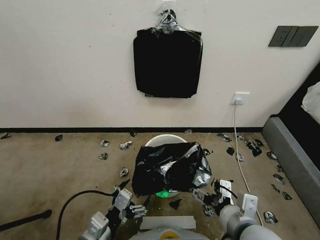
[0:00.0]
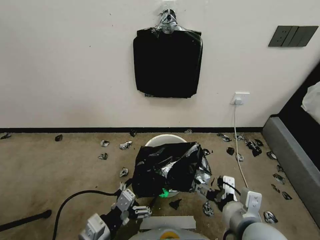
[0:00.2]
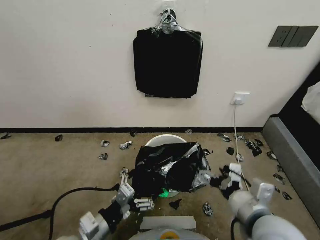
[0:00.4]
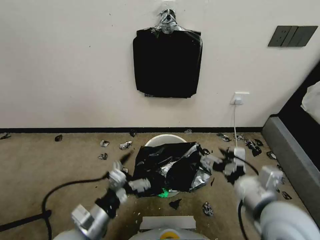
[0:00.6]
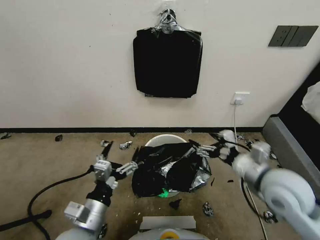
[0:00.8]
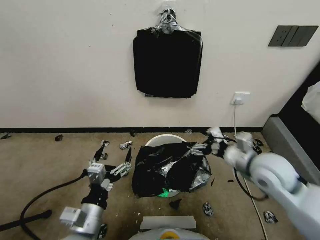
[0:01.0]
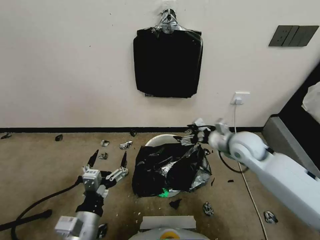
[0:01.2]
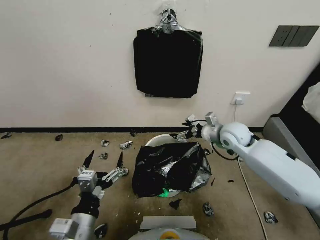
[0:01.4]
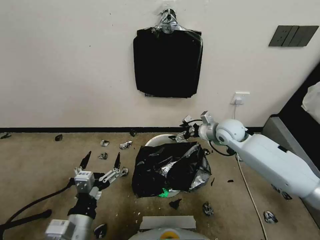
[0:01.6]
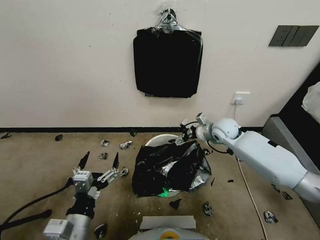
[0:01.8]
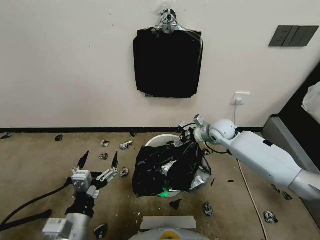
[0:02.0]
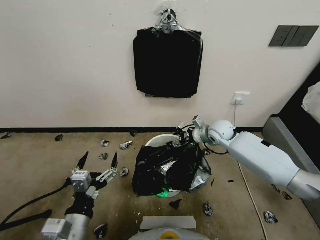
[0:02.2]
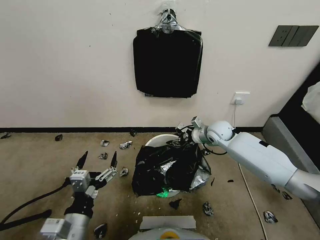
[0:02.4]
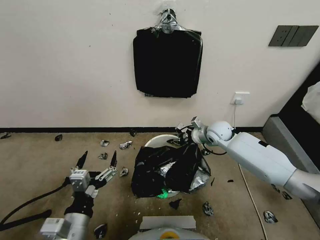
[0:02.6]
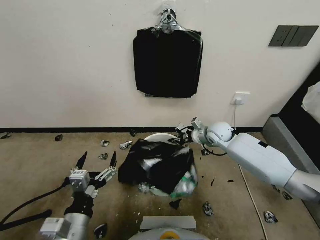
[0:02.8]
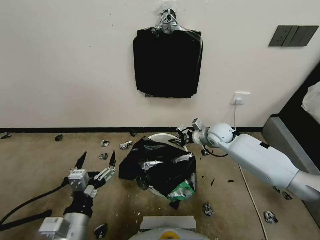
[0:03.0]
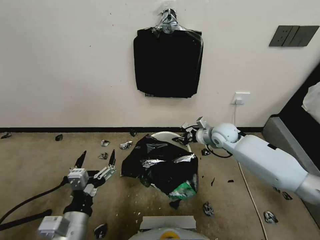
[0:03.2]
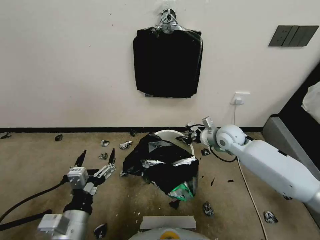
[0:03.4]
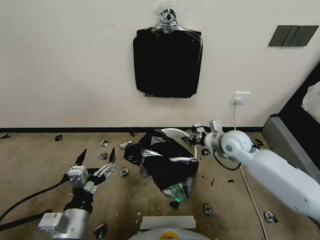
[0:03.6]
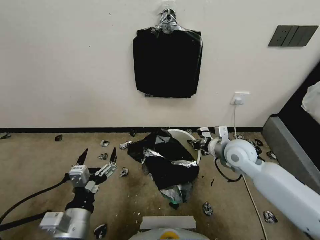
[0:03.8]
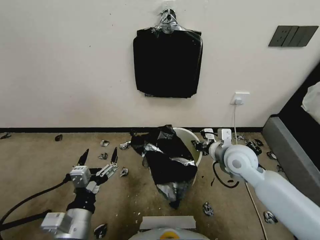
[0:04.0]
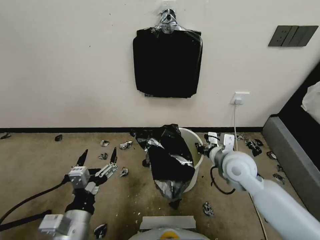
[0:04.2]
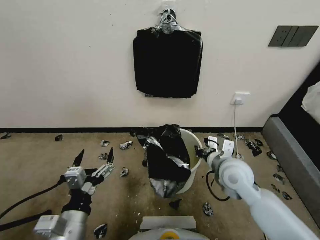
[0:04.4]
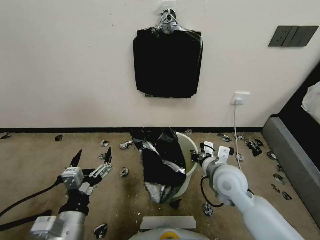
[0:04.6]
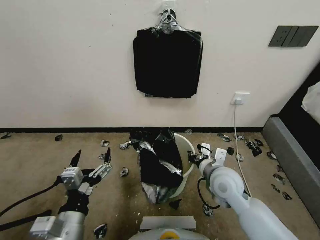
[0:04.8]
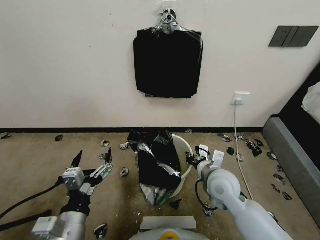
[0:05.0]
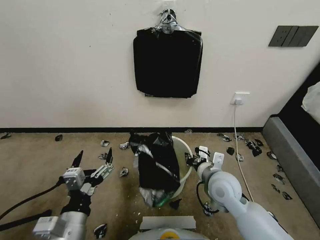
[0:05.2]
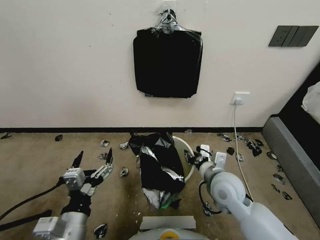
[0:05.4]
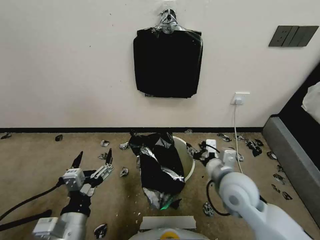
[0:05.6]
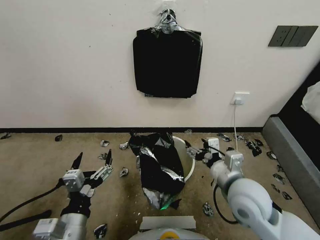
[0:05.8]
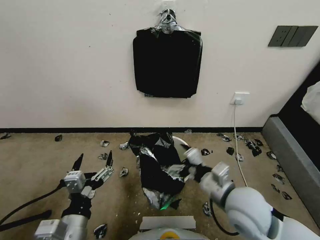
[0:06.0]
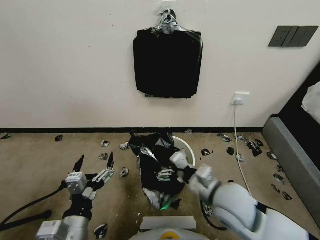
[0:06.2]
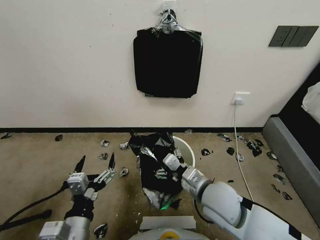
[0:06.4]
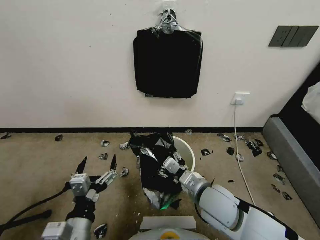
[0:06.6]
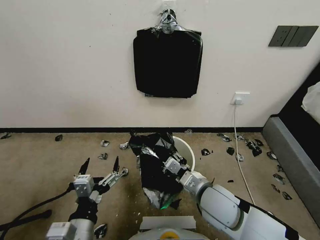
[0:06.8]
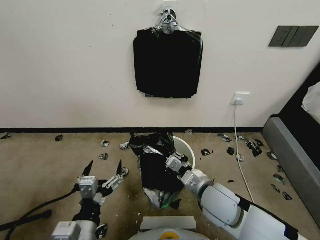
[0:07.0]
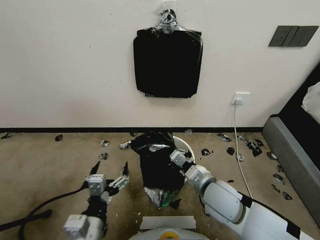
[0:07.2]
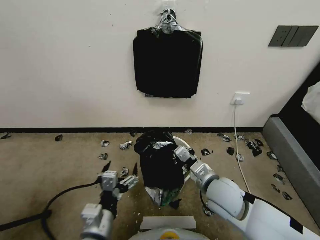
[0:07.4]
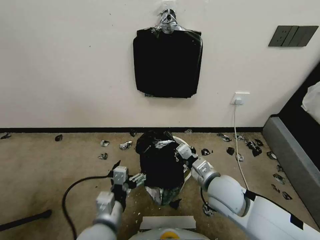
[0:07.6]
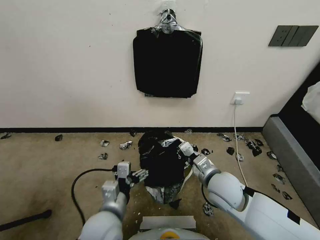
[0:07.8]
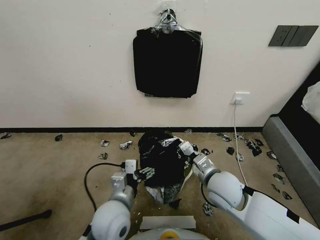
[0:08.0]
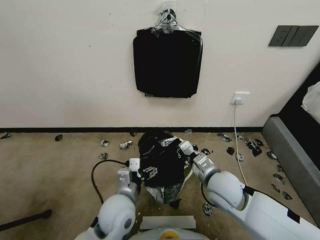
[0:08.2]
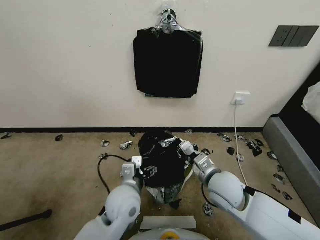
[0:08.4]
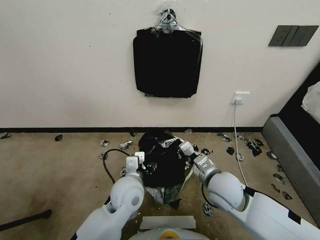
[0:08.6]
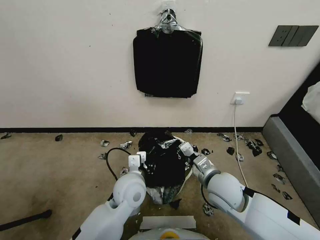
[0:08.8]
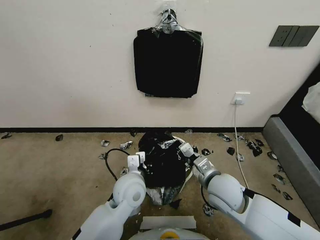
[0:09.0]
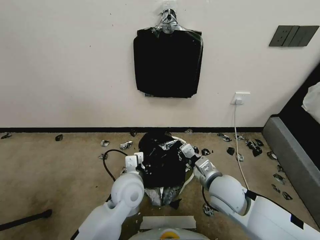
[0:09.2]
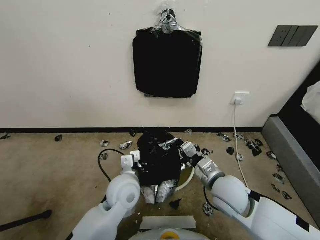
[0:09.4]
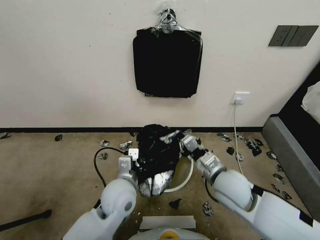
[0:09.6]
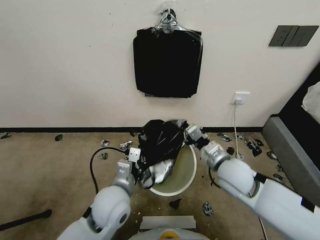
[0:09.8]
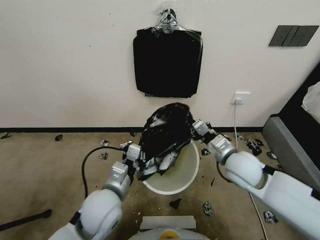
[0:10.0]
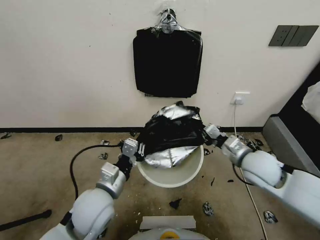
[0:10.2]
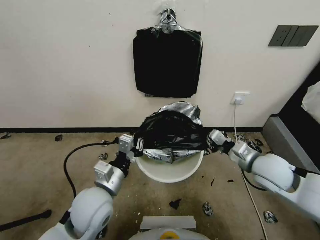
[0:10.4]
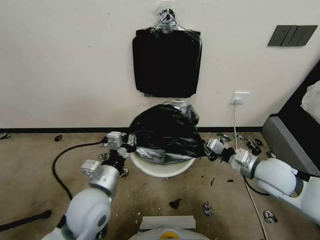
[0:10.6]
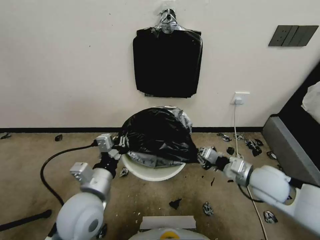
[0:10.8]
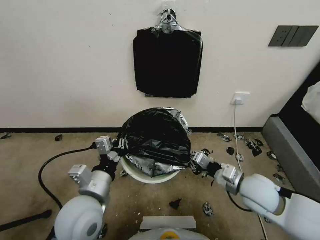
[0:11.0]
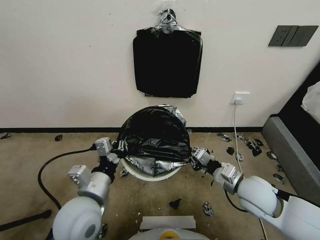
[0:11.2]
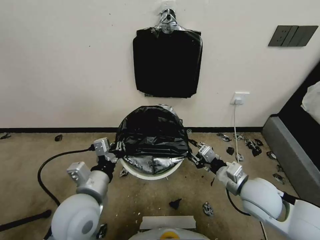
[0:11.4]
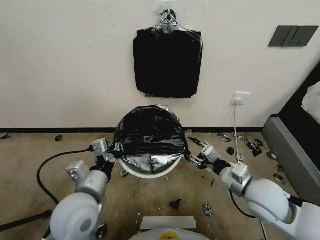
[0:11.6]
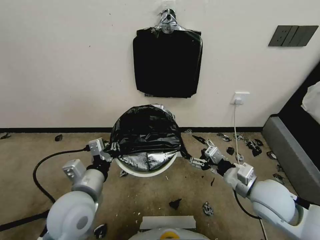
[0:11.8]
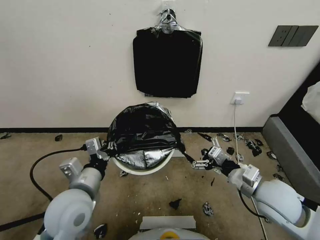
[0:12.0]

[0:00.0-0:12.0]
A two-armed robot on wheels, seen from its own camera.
Task of the whole recording: Place a trash bag onto the trash bin.
0:00.0 to 0:01.6: The right gripper travels forward by some 35 cm.
0:01.6 to 0:03.0: The right gripper is displaced downward by about 5 cm, and closes up.
0:03.0 to 0:04.4: The right gripper heads backward, covering some 20 cm.
0:04.4 to 0:06.0: The right gripper is displaced backward by approximately 10 cm, and opens.
0:06.0 to 0:07.6: The right gripper travels downward by approximately 5 cm, and closes its fingers. The left gripper goes about 5 cm to the right.
0:07.6 to 0:09.0: The left gripper shifts roughly 15 cm forward and to the right, and closes its fingers.
0:09.0 to 0:10.4: The left gripper is displaced to the left and backward by roughly 10 cm, while the right gripper goes approximately 15 cm to the right and upward.
0:10.4 to 0:12.0: The right gripper goes about 5 cm backward, and opens its fingers. The left gripper ends up some 5 cm from where it was.

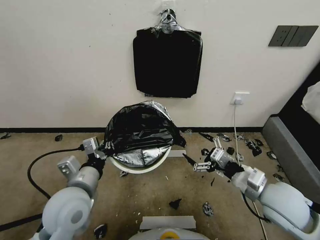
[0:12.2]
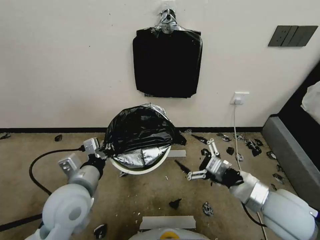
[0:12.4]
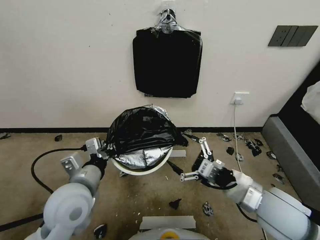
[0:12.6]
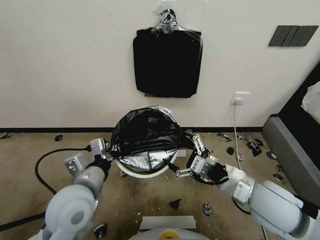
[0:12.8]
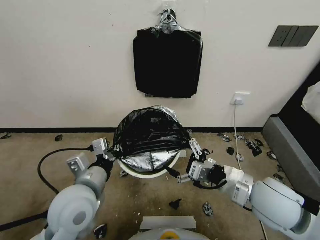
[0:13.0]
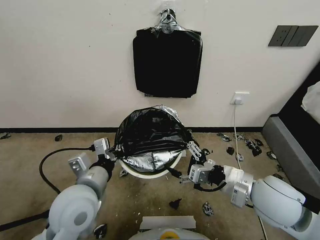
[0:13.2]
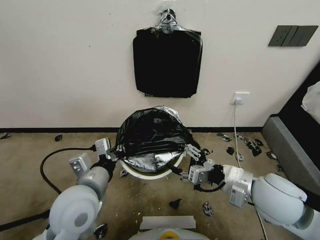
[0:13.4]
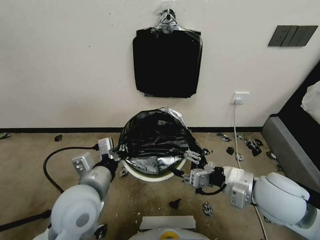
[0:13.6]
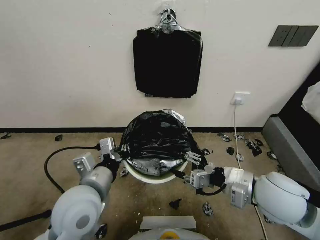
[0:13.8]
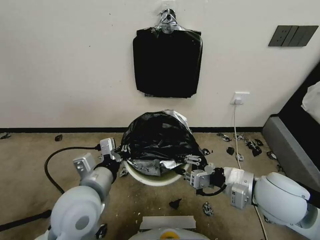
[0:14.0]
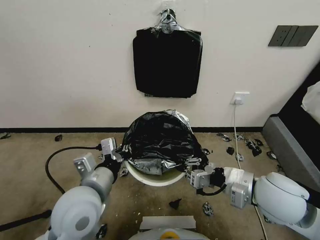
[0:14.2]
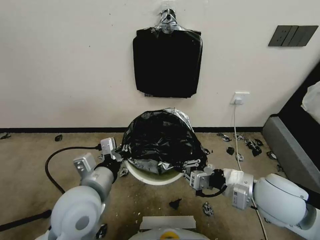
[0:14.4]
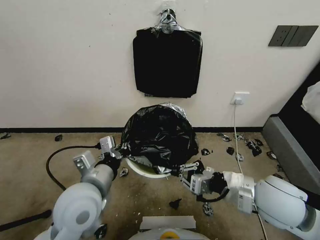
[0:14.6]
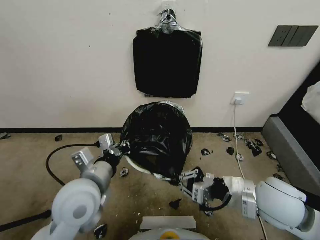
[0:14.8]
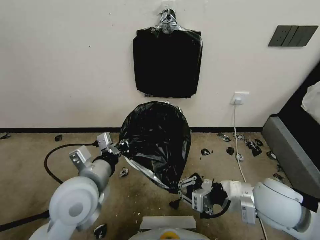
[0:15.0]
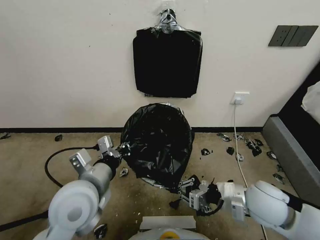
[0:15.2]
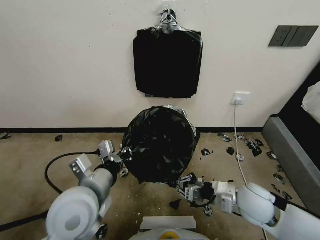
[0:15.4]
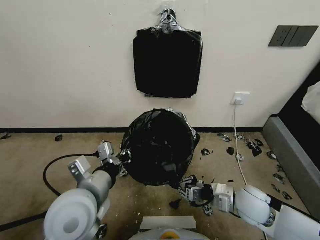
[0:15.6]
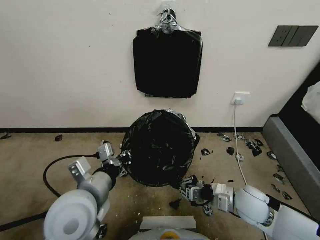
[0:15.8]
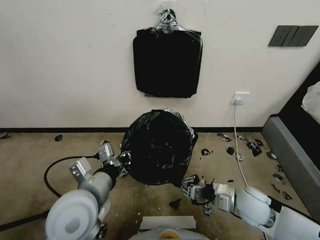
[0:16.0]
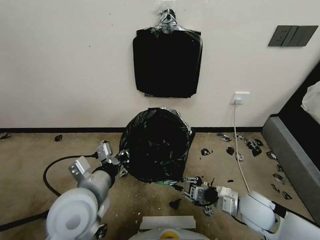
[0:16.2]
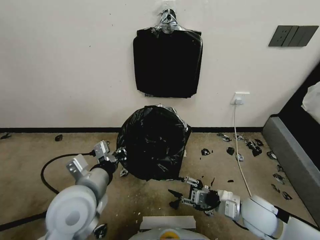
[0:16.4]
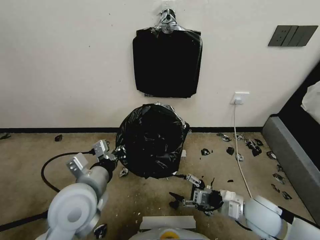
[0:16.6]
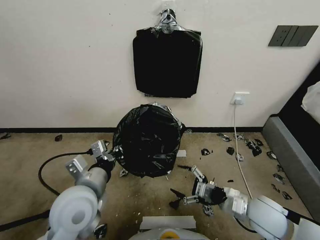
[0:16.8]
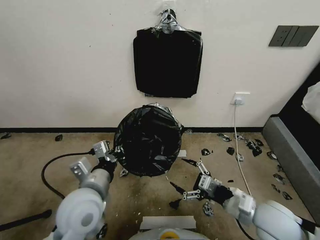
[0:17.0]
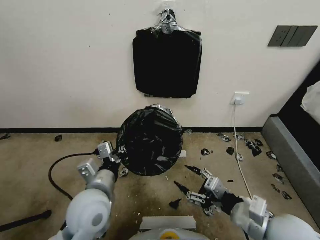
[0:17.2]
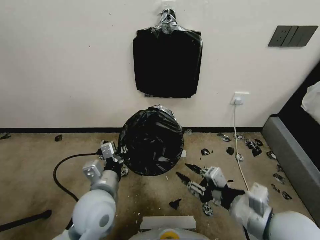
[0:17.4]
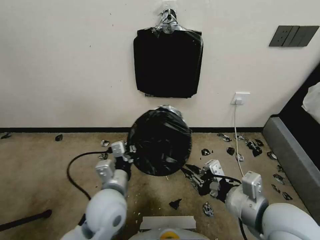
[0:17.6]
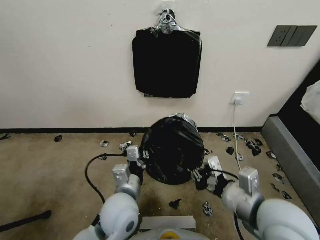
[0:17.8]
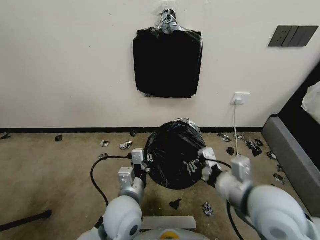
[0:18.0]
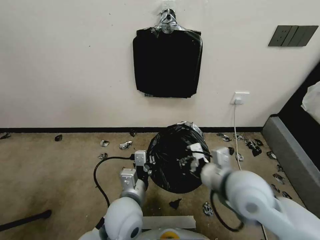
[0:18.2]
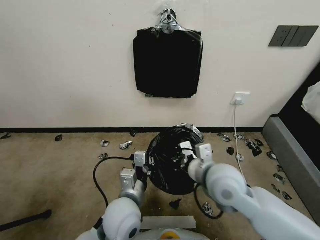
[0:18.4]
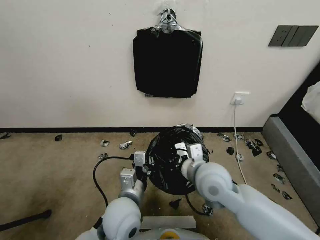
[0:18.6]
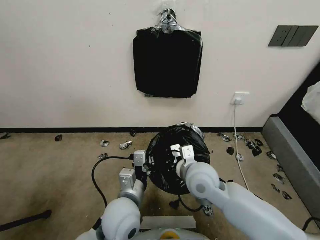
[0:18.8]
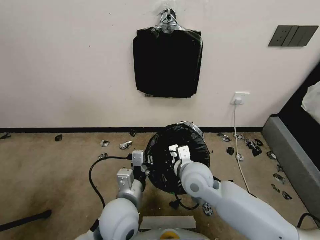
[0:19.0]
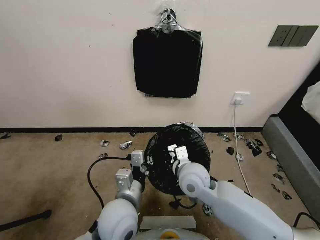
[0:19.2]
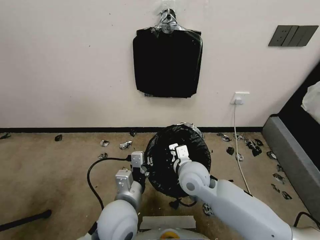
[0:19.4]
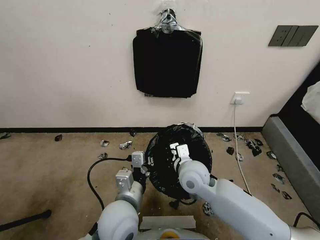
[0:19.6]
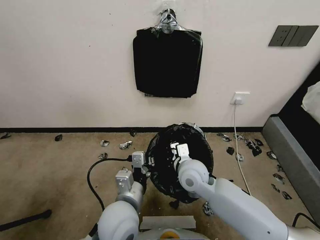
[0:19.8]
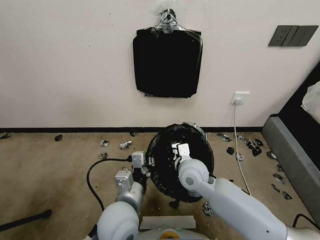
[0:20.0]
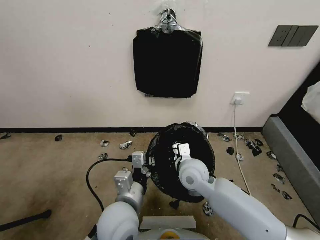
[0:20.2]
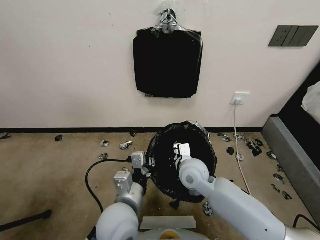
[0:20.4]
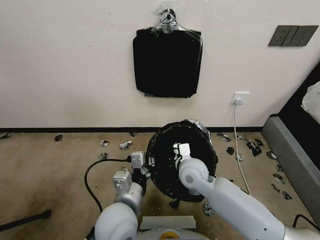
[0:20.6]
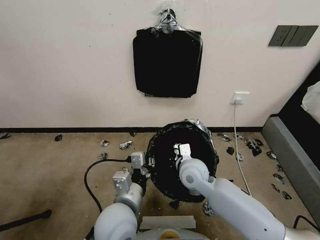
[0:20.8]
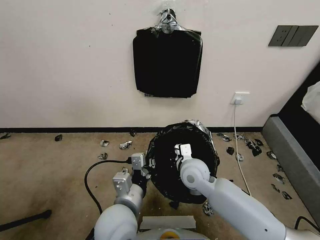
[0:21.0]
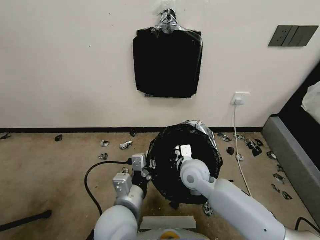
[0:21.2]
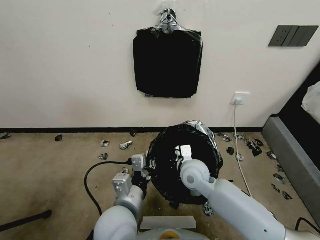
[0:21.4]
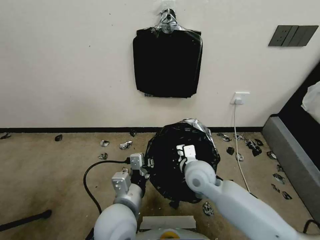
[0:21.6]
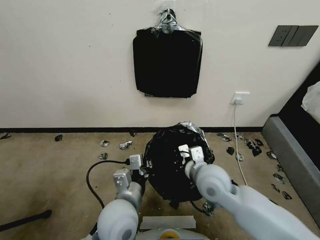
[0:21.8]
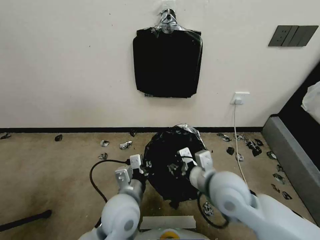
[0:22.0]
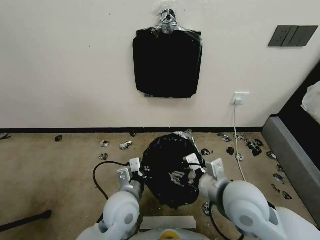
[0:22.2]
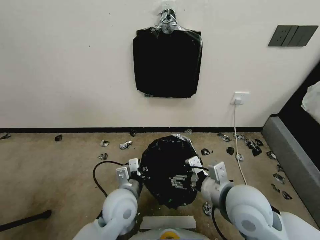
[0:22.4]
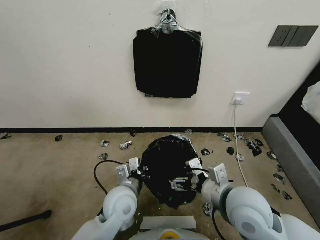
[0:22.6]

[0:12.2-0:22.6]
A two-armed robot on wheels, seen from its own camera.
Task of the whole recording: Place a trash bag onto the trash bin.
0:12.2 to 0:13.6: The right gripper changes place by some 5 cm, and closes up.
0:13.6 to 0:15.2: The right gripper travels downward by some 5 cm, and closes its fingers.
0:15.2 to 0:16.6: The right gripper shifts about 10 cm downward, and opens.
0:16.6 to 0:18.2: The left gripper is displaced to the right and downward by some 15 cm; the right gripper shifts some 20 cm upward and to the left, and closes.
0:18.2 to 0:19.6: The right gripper moves downward, to the left and forward, about 15 cm.
0:19.6 to 0:21.2: The grippers move only a little.
0:21.2 to 0:22.6: The left gripper heads forward and downward, covering roughly 10 cm; the right gripper is displaced backward, upward and to the right by some 20 cm, and opens up.
